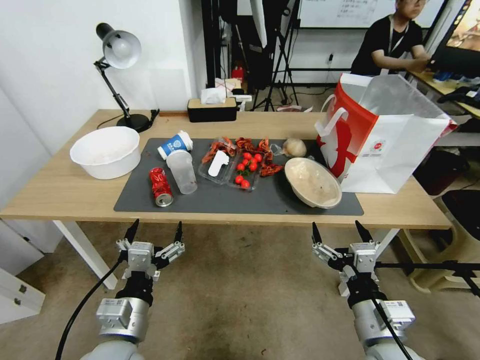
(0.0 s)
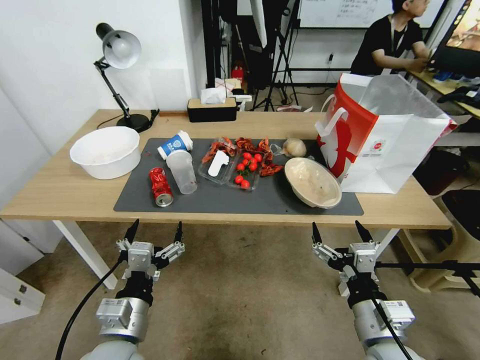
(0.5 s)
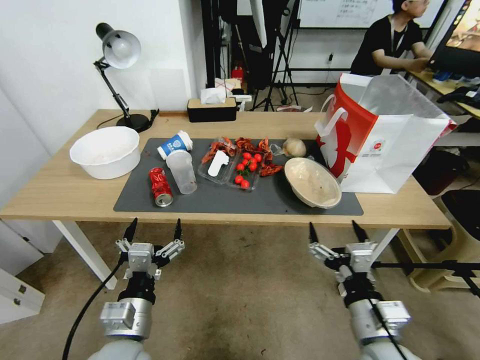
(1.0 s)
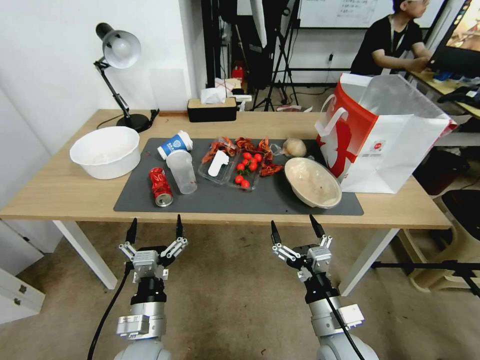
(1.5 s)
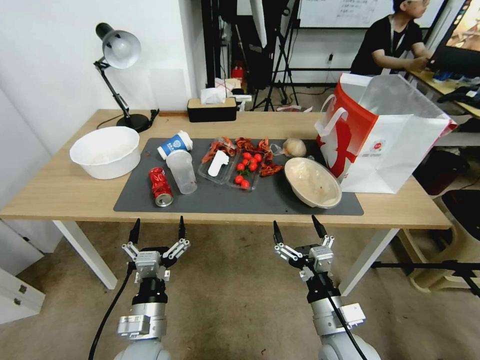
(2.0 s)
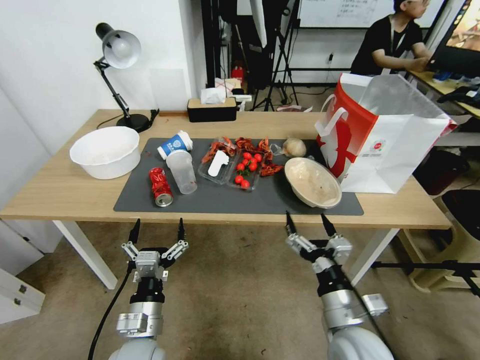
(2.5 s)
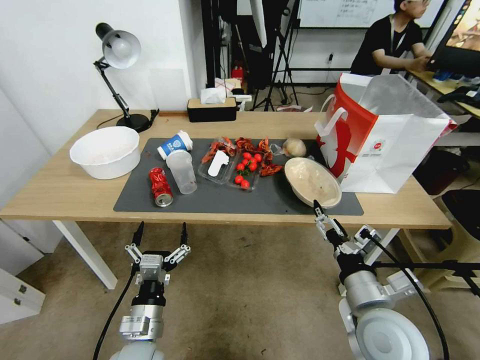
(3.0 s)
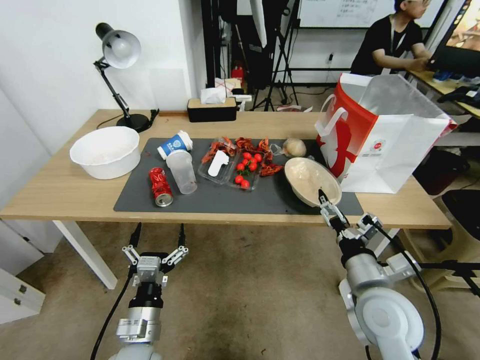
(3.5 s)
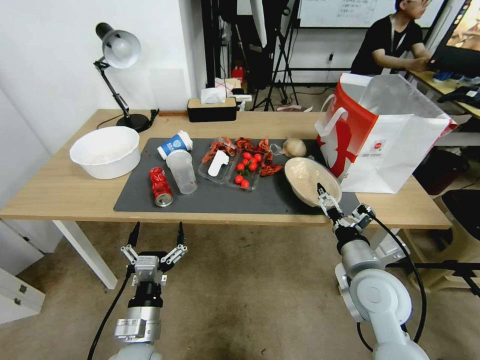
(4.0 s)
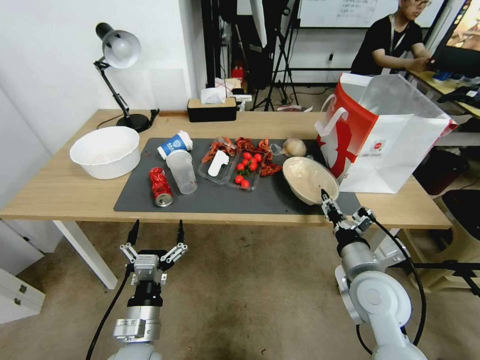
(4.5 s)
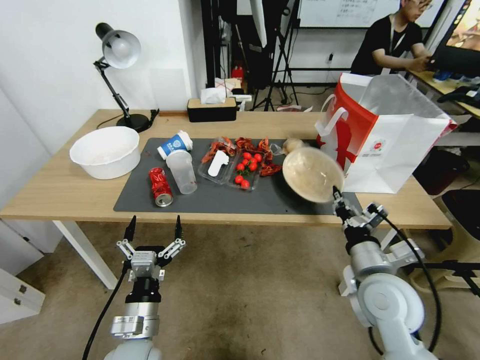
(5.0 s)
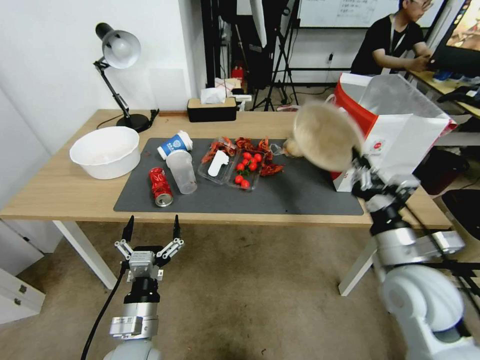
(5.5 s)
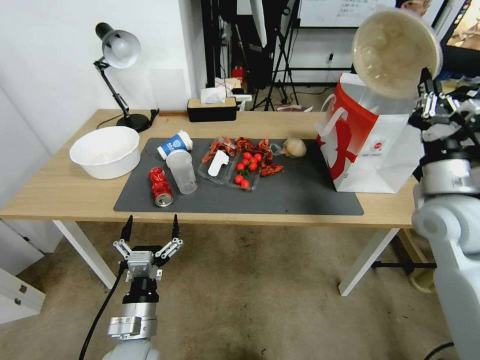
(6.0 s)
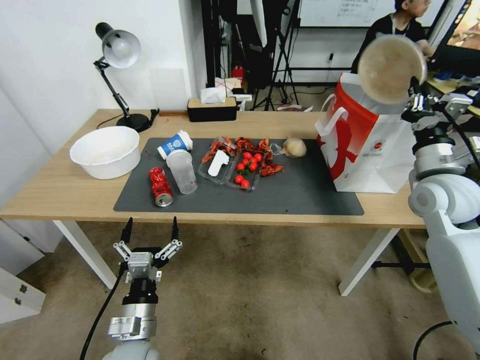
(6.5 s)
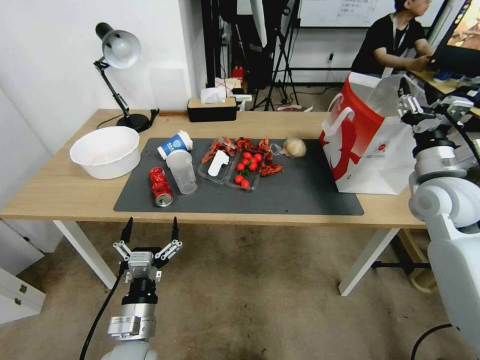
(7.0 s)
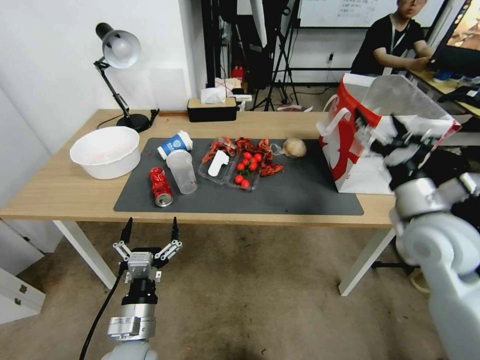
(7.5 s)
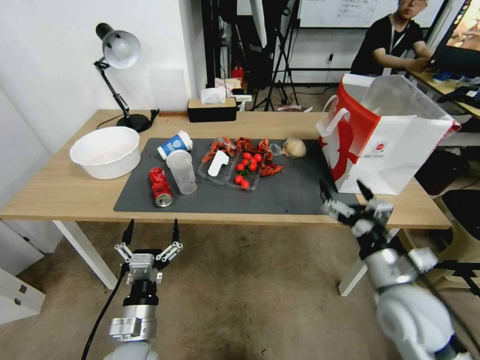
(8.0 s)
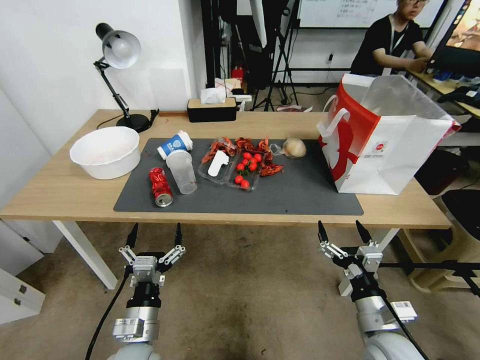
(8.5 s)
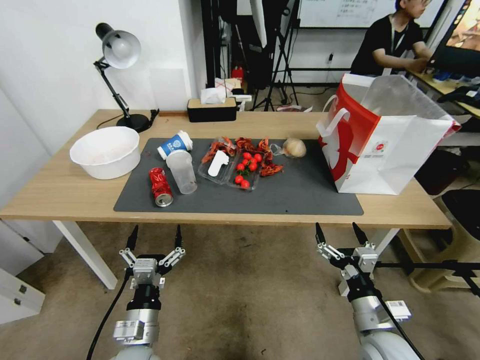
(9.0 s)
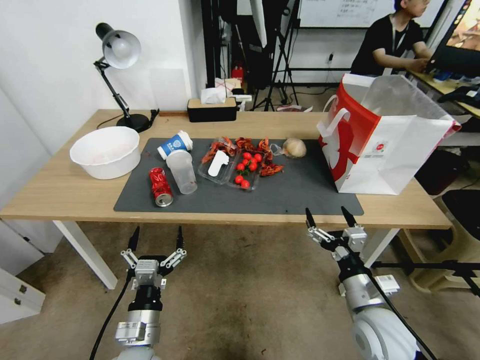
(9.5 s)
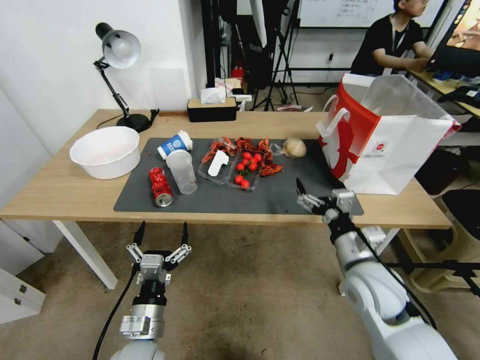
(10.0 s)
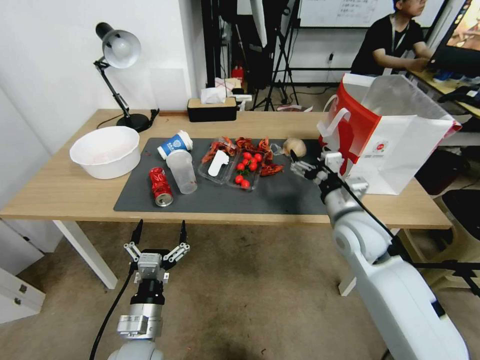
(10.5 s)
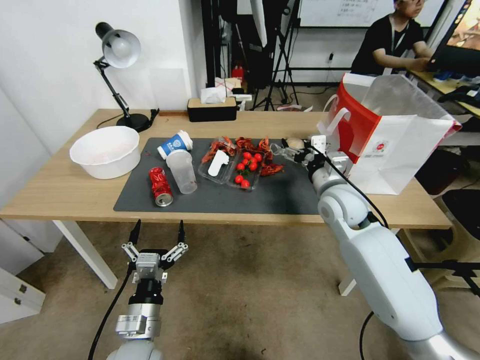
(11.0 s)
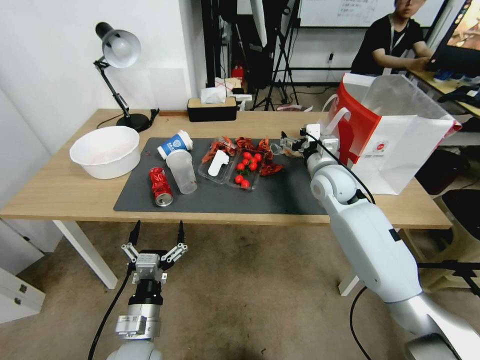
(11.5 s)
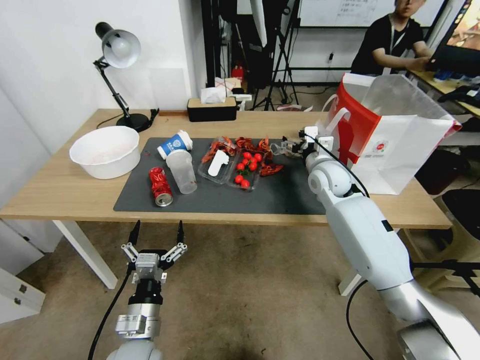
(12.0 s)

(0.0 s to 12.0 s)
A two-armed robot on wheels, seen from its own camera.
2.0 s - 4.0 s: The right gripper heads forward, upward and to the right, covering roughly 15 cm.
4.0 s - 6.0 s: The right gripper is displaced upward, to the right and forward by about 20 cm, and closes.
6.0 s - 8.0 s: The right gripper is displaced downward, backward and to the left by about 15 cm, and opens.
10.0 s - 12.0 s: The right gripper goes approximately 25 cm forward.

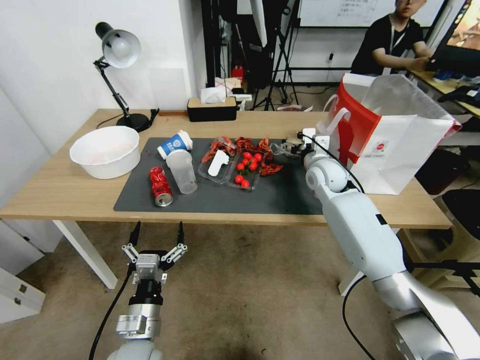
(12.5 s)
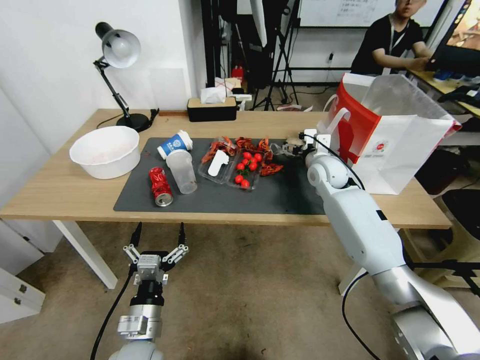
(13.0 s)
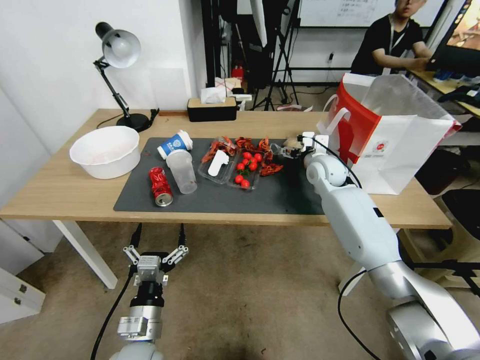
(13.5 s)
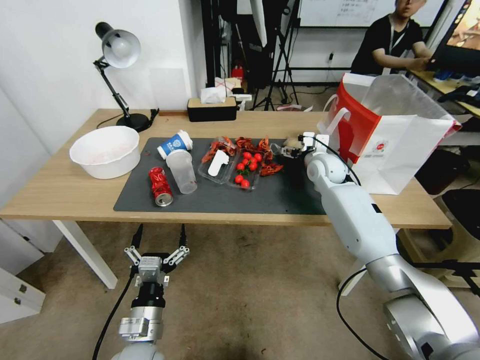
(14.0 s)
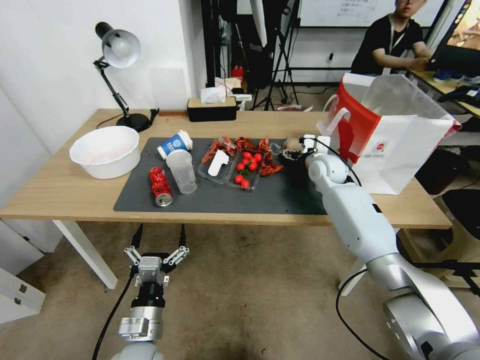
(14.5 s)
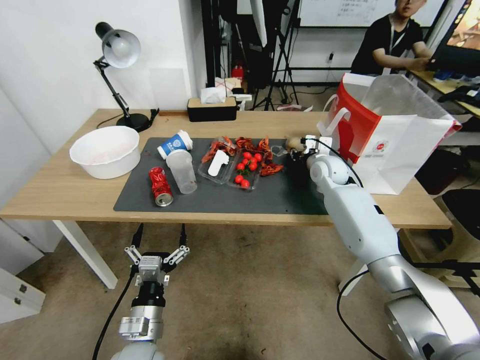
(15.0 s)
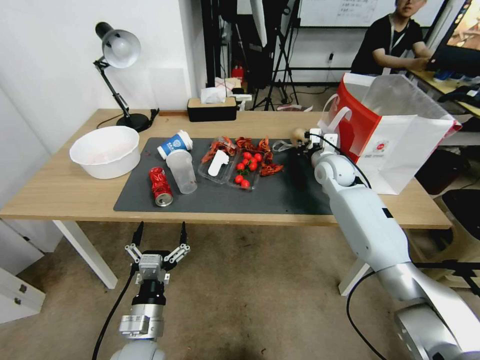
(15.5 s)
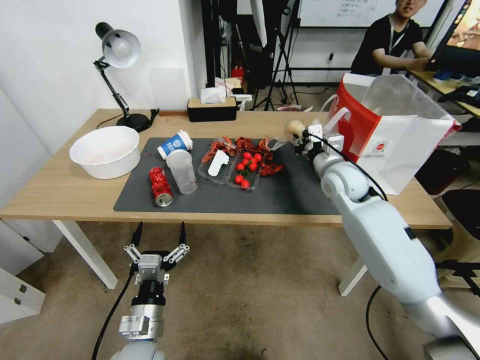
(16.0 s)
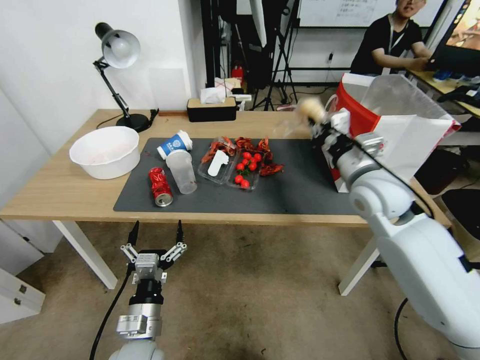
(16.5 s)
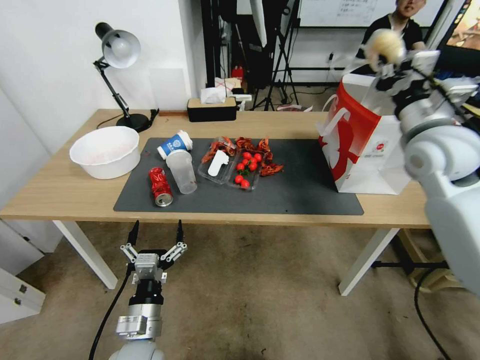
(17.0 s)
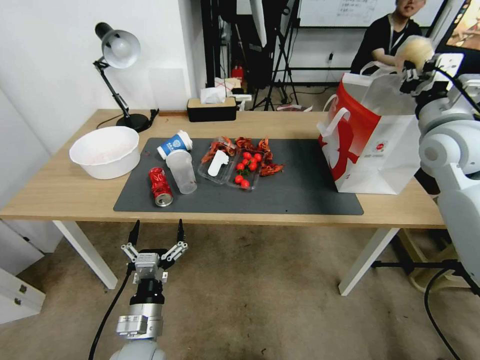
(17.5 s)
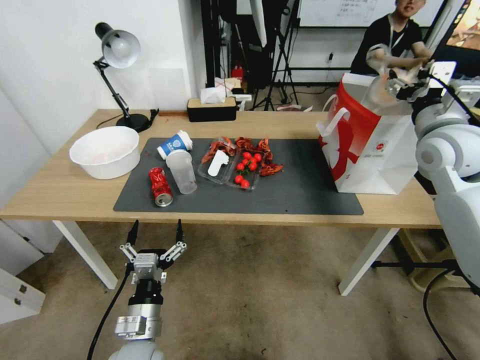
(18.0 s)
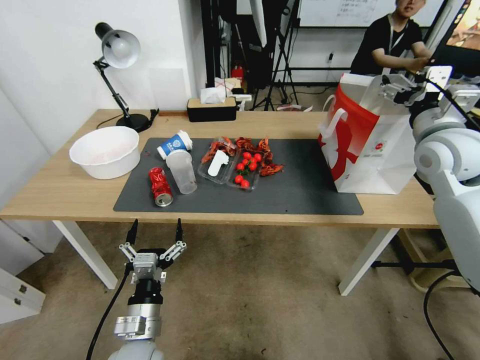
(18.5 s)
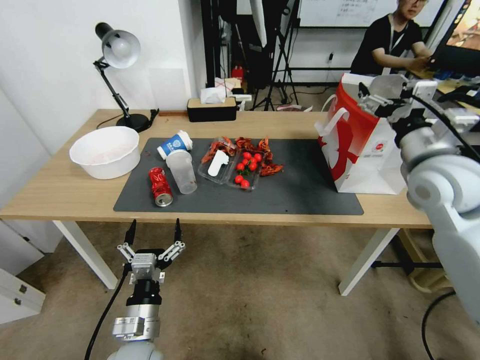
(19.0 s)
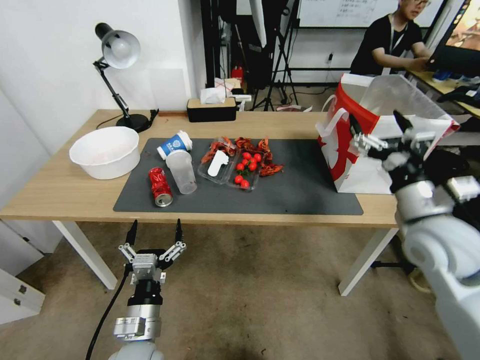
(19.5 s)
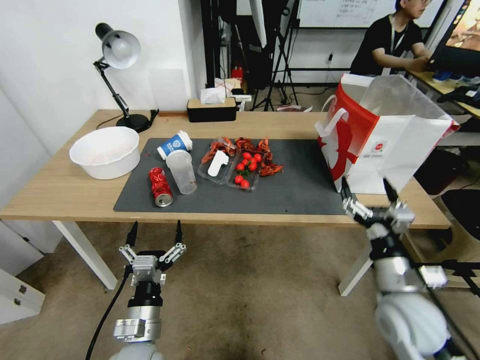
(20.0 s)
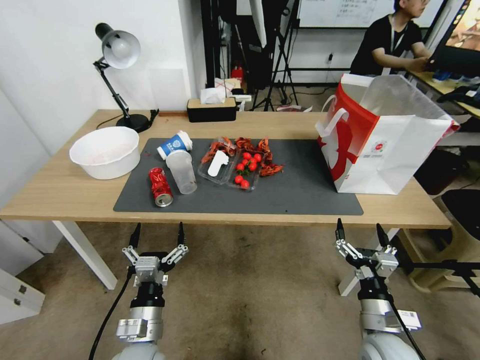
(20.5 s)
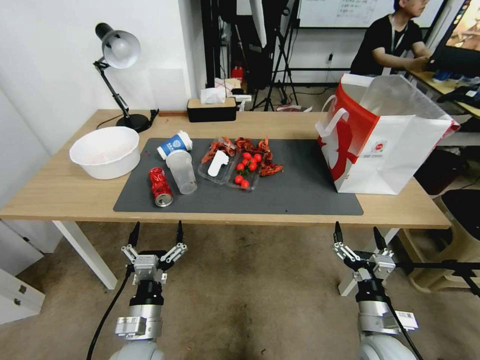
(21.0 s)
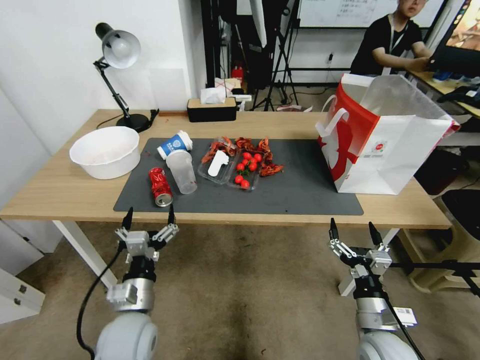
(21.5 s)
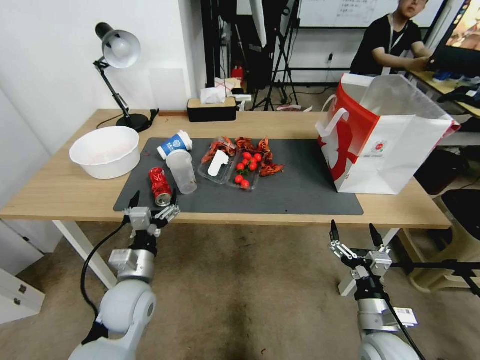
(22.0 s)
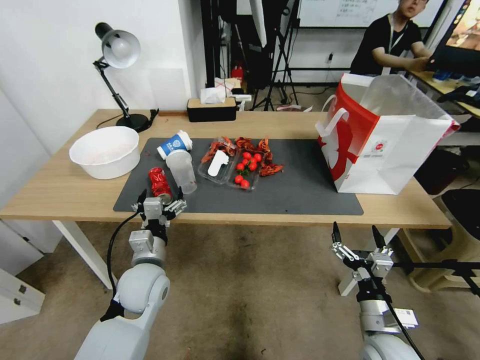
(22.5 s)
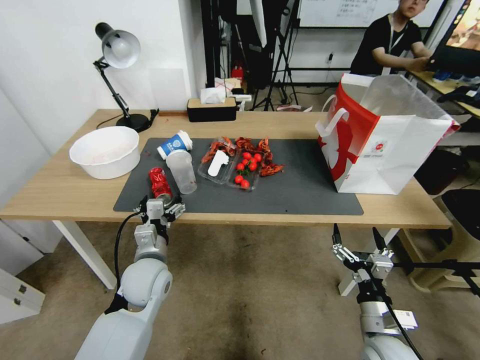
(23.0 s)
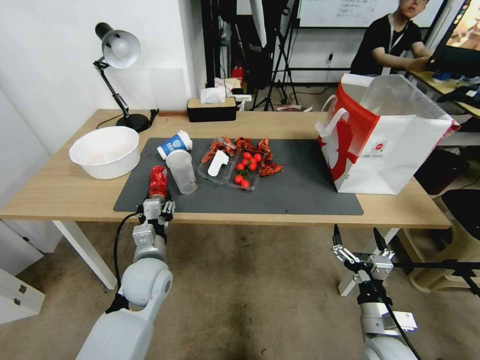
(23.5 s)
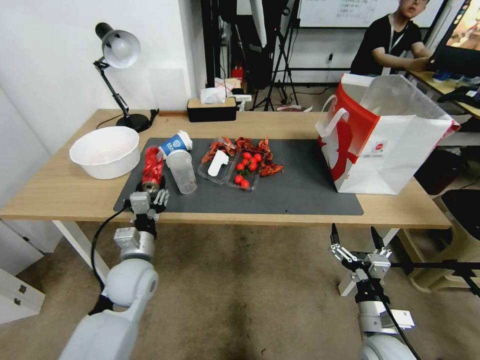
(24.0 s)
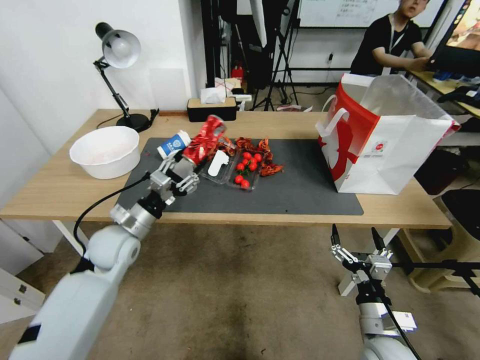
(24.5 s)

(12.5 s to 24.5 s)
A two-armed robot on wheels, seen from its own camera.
12.5 s - 14.5 s: There are only small adjustments of the grippers.
14.5 s - 16.5 s: The right gripper travels backward and upward by approximately 20 cm, and closes.
16.5 s - 18.5 s: The right gripper heads to the right and upward, covering some 15 cm, and opens its fingers.
18.5 s - 20.5 s: The right gripper shifts roughly 40 cm downward and backward.
20.5 s - 22.5 s: The left gripper heads forward, covering some 15 cm.
22.5 s - 24.5 s: The left gripper goes some 10 cm to the left and forward, and closes.

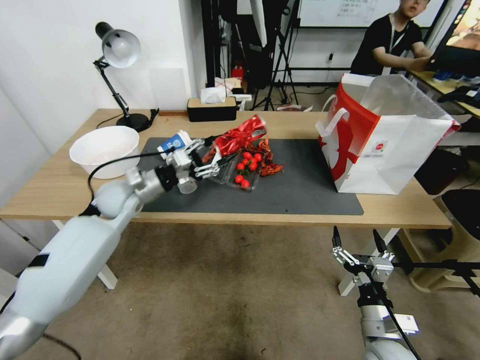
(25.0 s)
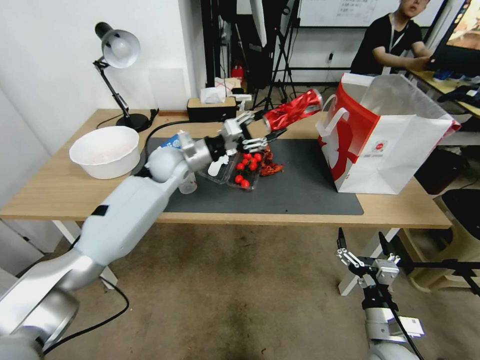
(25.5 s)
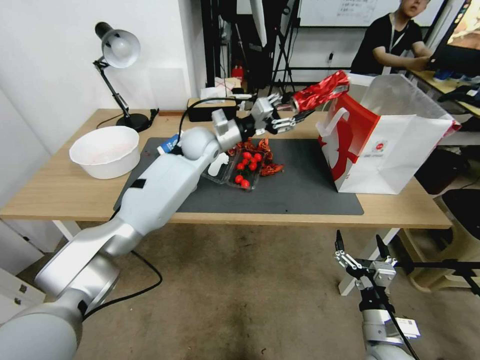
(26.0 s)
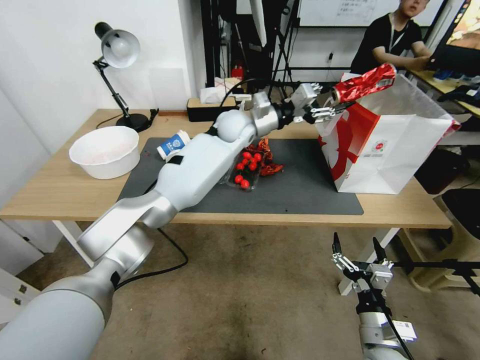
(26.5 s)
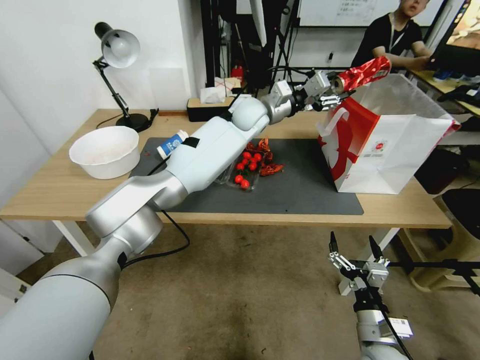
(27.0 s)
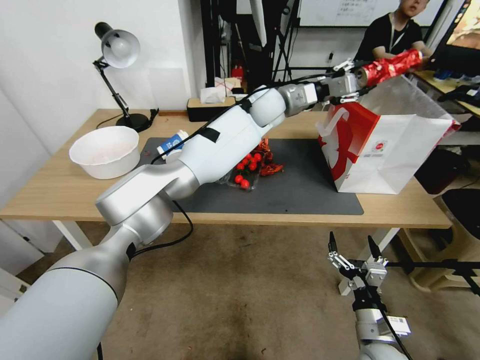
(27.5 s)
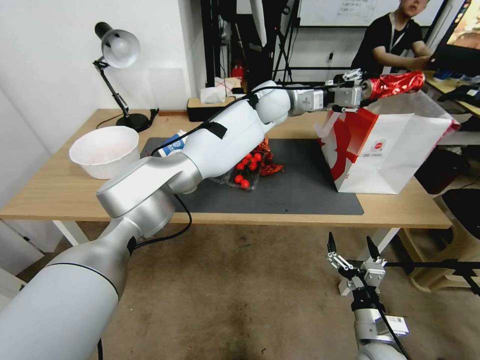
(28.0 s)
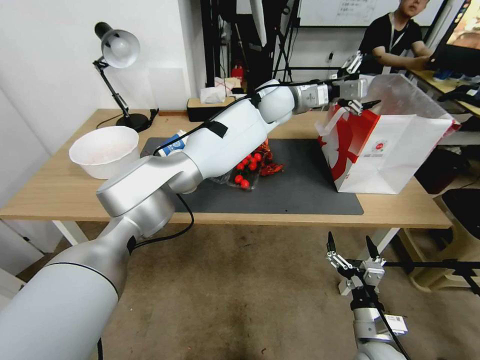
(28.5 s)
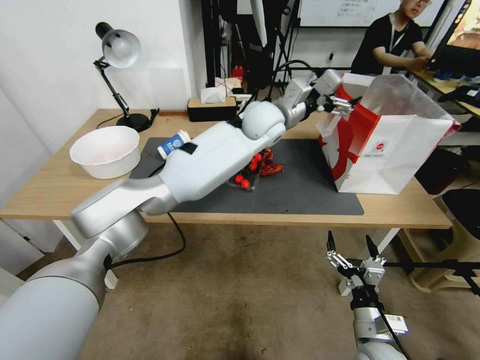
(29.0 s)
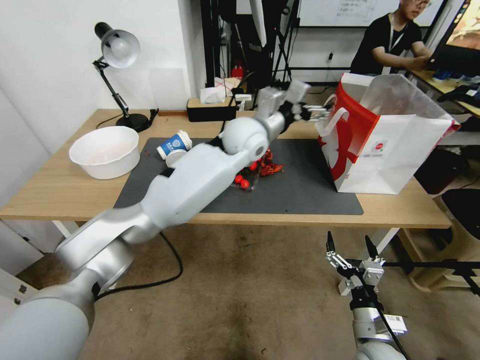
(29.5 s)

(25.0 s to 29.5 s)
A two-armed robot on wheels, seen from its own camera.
25.0 s - 27.0 s: The left gripper goes about 35 cm to the right, forward and upward.
27.0 s - 29.5 s: The left gripper goes about 5 cm backward, and opens up.
